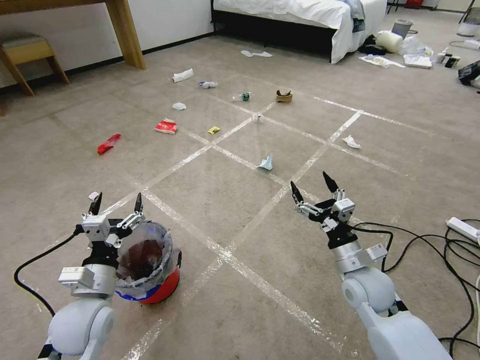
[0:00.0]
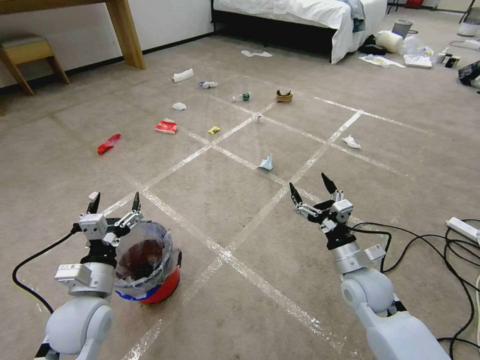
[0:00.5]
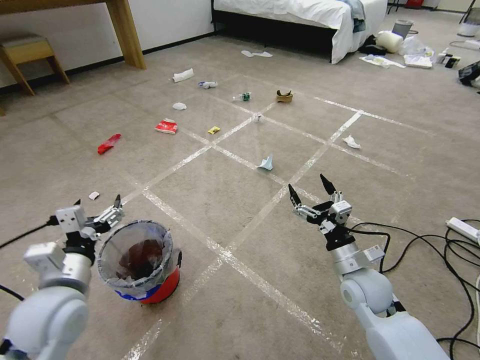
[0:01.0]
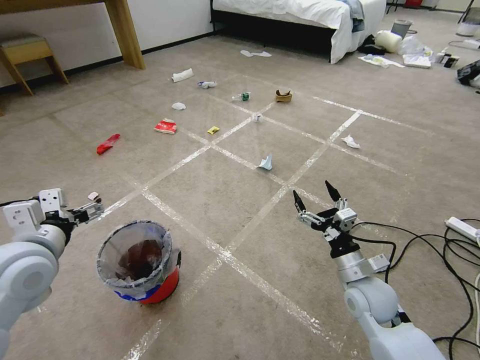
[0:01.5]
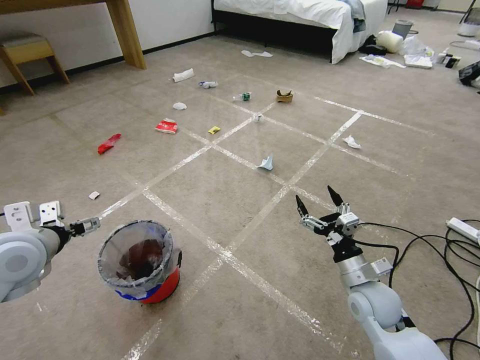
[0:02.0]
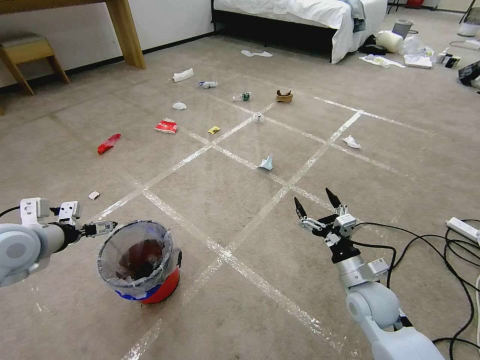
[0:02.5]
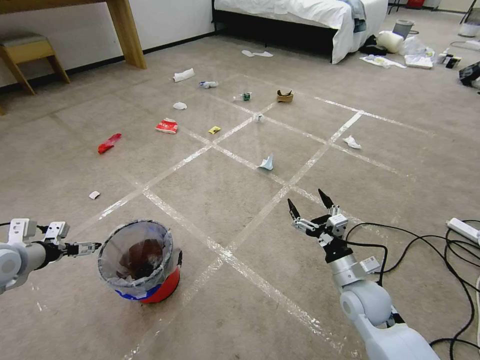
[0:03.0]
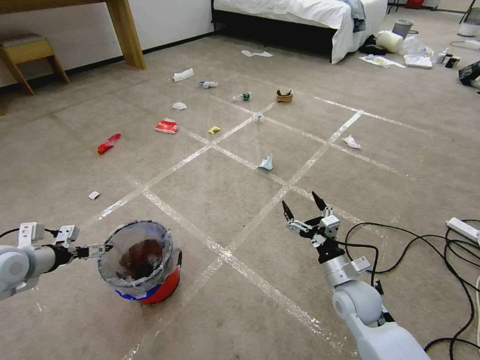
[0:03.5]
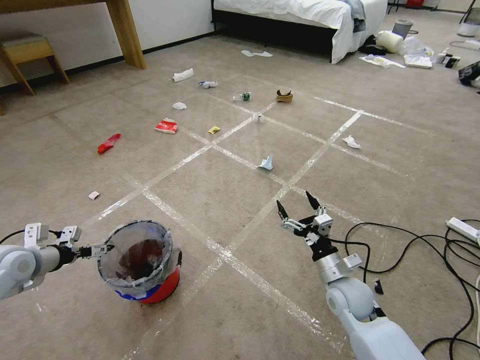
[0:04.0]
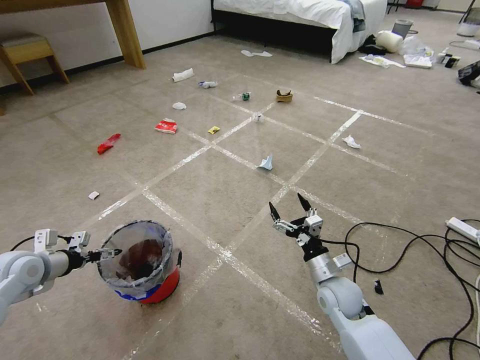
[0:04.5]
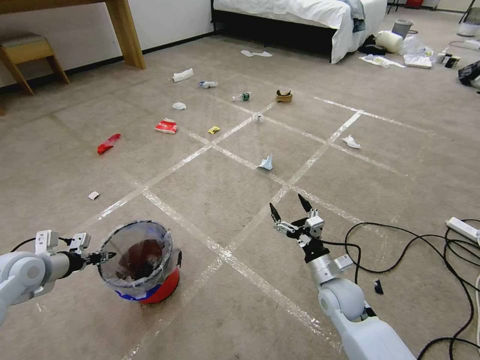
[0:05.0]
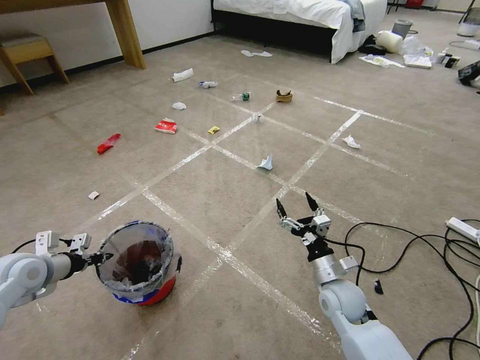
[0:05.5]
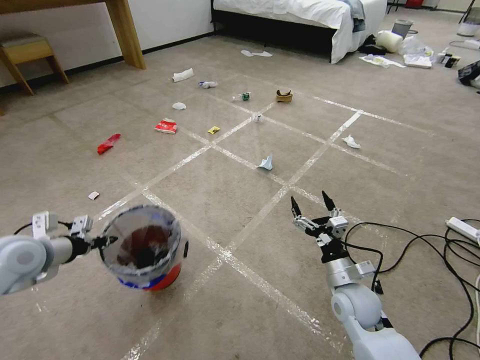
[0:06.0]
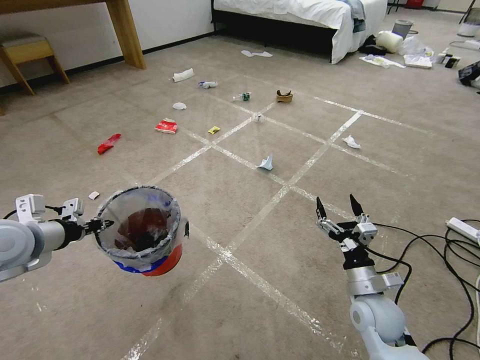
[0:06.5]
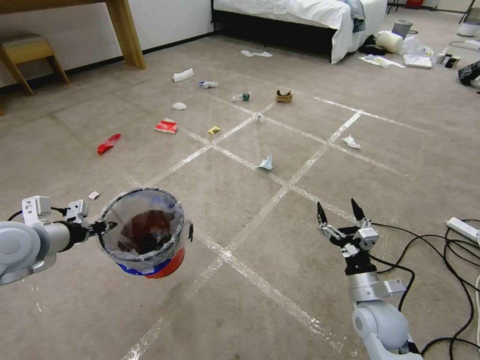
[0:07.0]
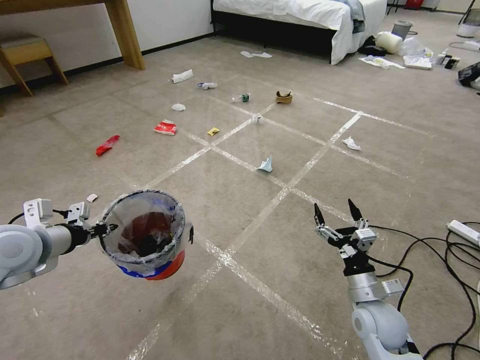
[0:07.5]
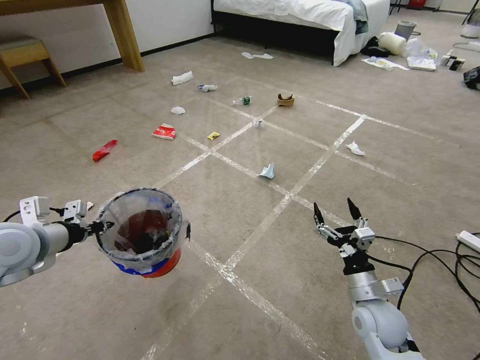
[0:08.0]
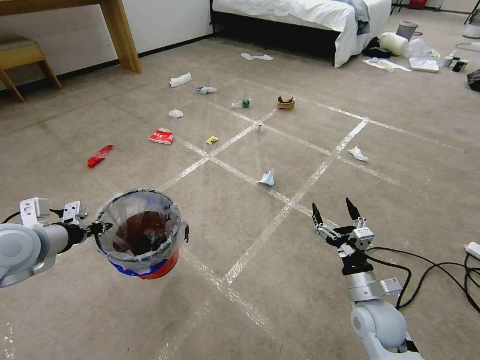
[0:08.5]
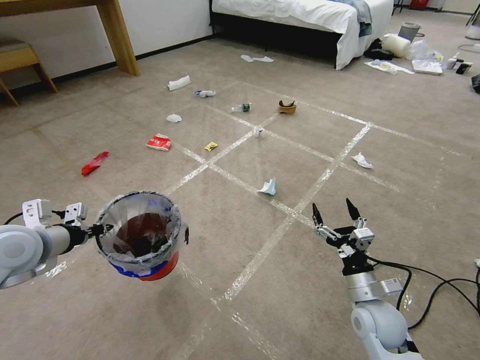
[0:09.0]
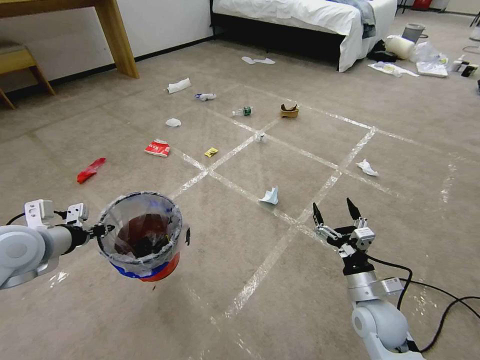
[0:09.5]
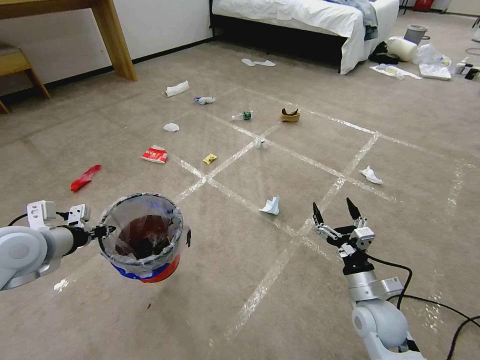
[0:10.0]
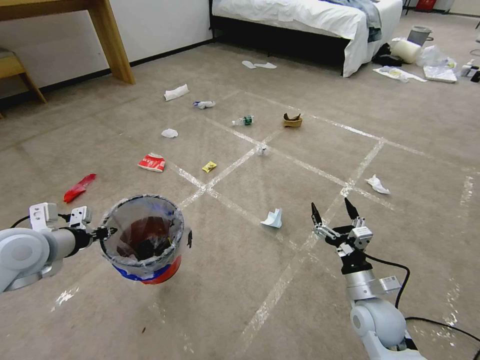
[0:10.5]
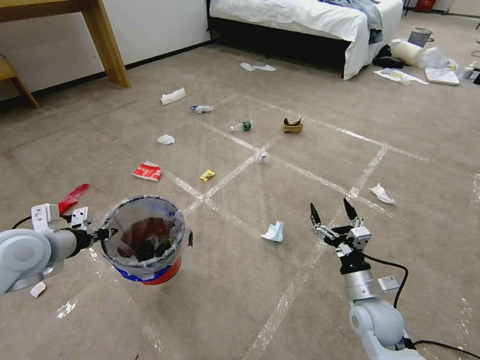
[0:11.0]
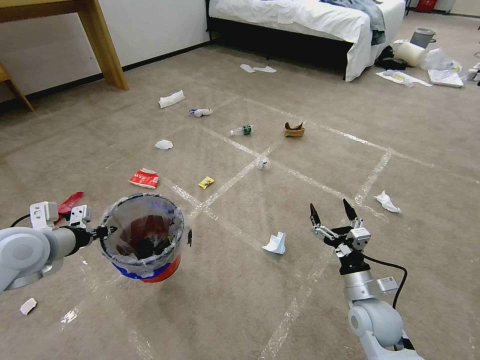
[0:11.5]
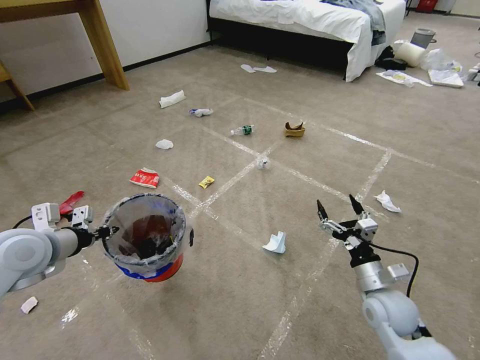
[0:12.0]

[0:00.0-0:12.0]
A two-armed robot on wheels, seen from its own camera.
Task of the whole recording: Pick up the trash bin and place the garbage on the floor into it.
0:02.0 to 0:04.0: The right gripper changes place by about 5 cm, while the left gripper goes roughly 15 cm to the left and downward.
0:04.0 to 0:06.0: The left gripper travels to the right and upward by approximately 10 cm, and closes.

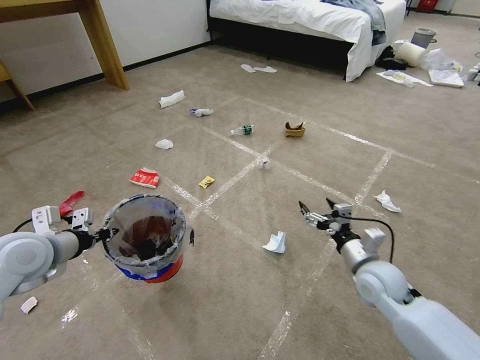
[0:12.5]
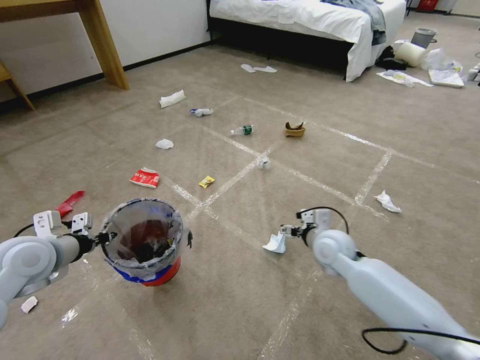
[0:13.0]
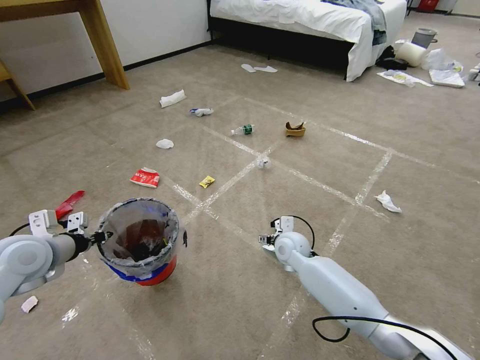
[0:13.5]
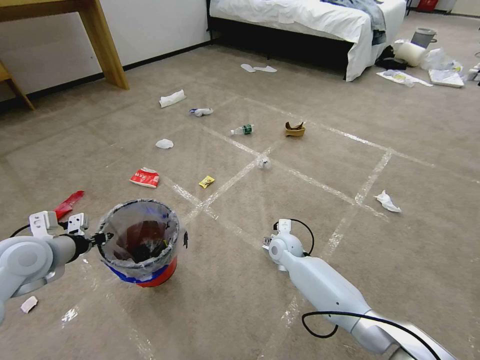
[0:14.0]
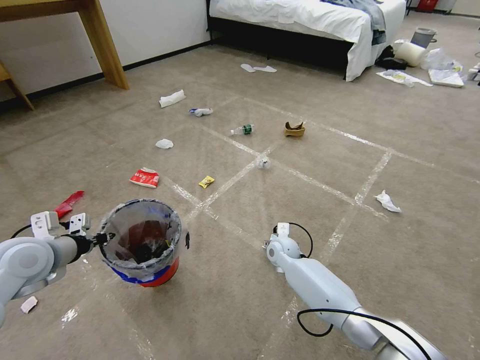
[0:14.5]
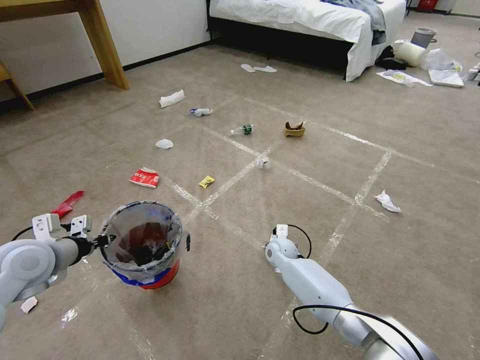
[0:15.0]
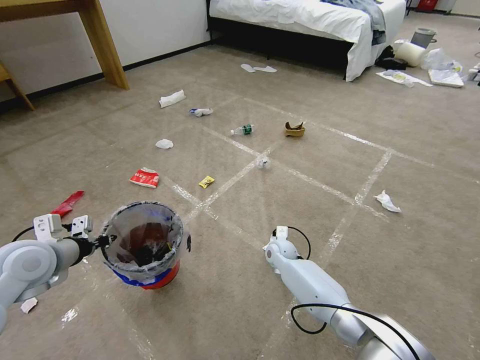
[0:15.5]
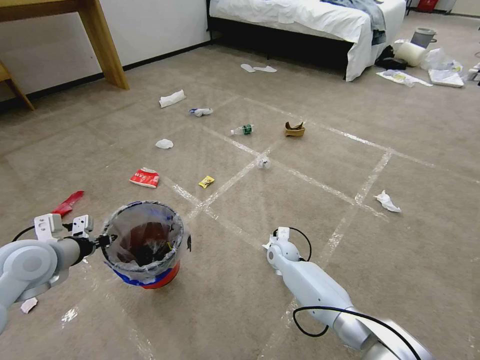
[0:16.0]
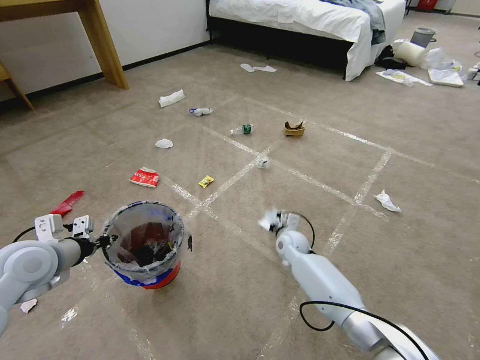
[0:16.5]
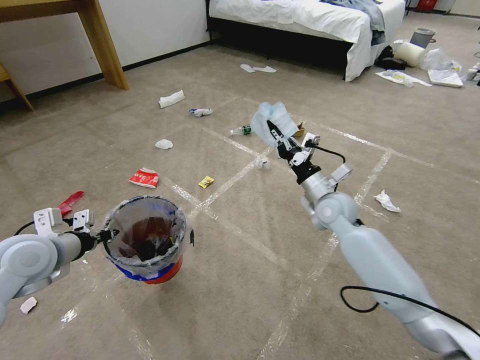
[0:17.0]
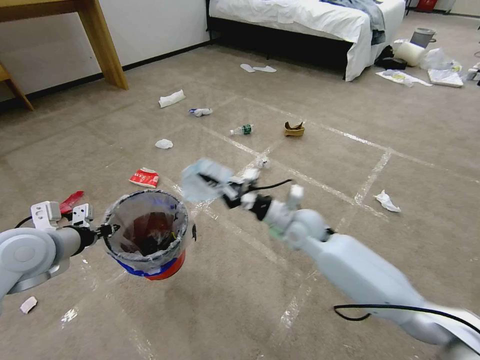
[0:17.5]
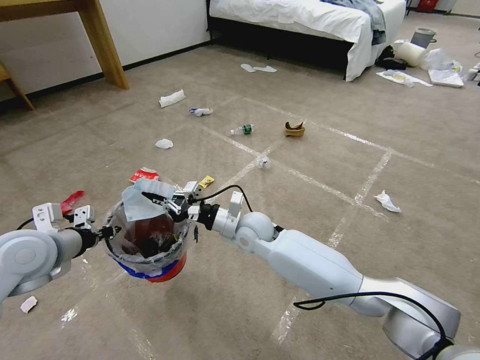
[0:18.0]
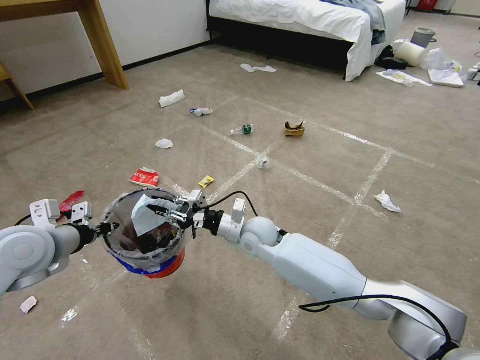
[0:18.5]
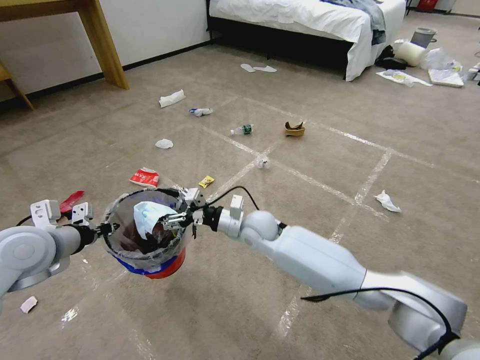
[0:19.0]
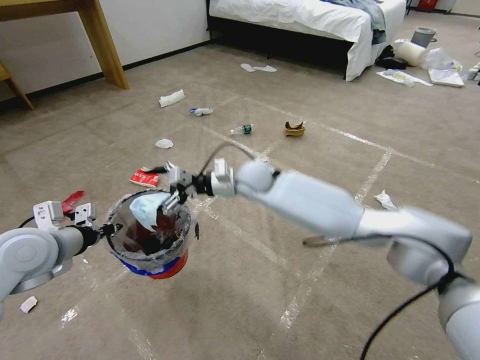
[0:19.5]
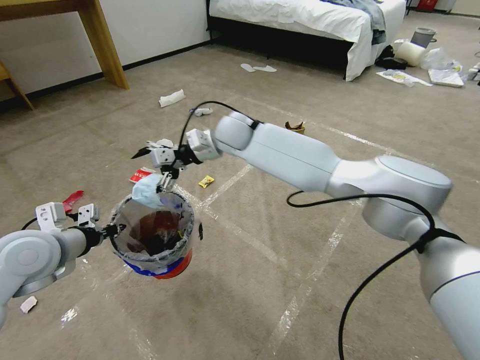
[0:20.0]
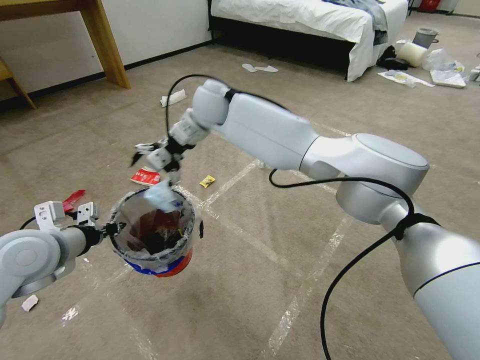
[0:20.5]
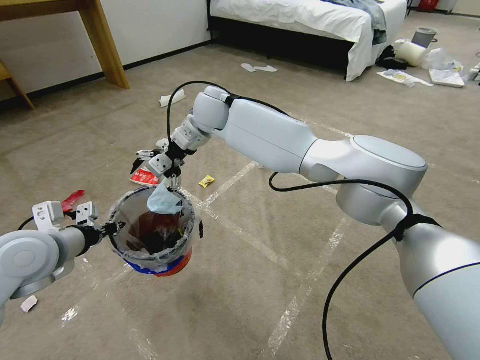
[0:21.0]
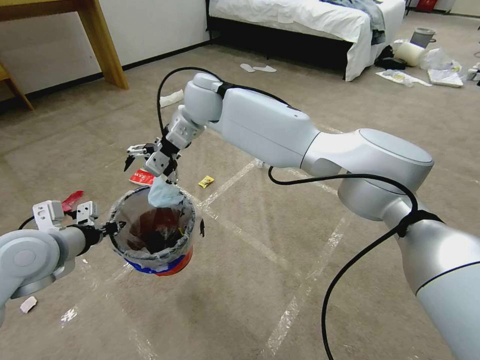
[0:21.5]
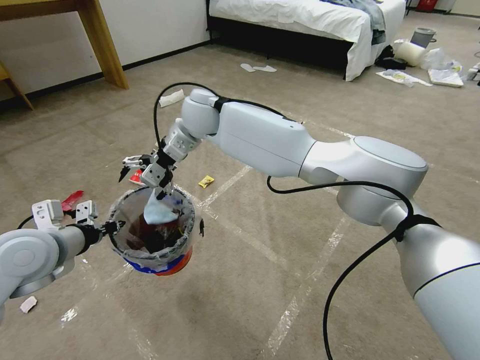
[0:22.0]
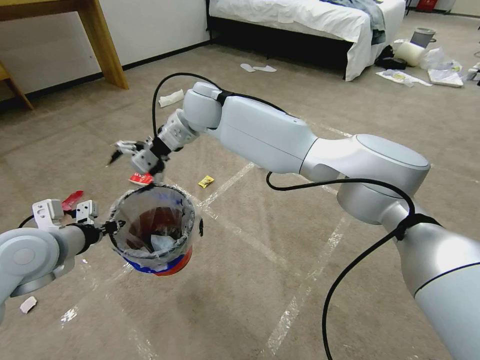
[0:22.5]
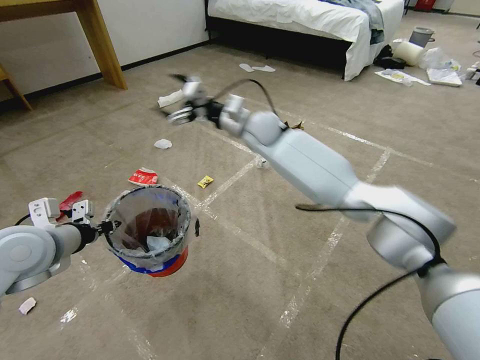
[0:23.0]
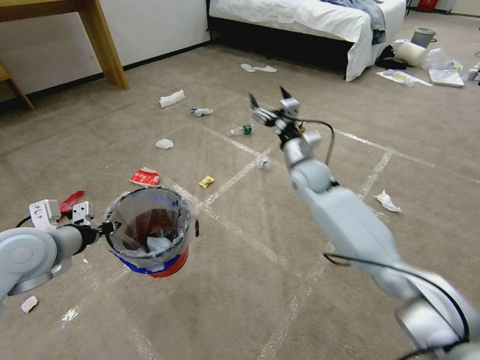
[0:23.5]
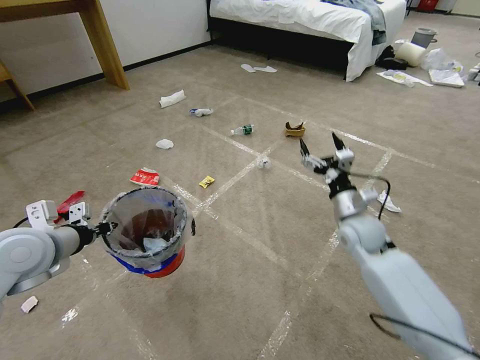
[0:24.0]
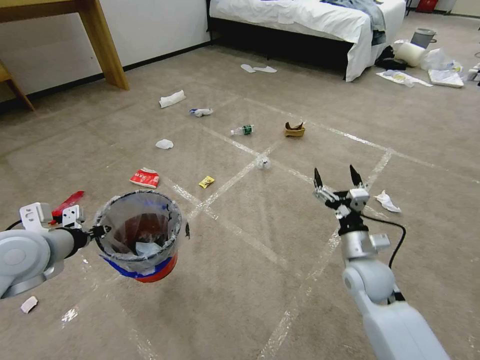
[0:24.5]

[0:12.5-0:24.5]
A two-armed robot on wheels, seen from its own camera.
Task of the whole recording: Pick up the trash bin and place the garbage on the floor into it.
0:12.5 to 0:14.5: The right gripper is displaced to the left, forward and downward by approximately 25 cm.
0:14.5 to 0:16.5: The right gripper closes up.
0:16.5 to 0:18.5: The right gripper is displaced upward and to the left by about 15 cm.
0:18.5 to 0:20.5: The right gripper goes some 30 cm upward and forward, and opens its fingers.
0:20.5 to 0:22.5: There are only small adjustments of the grippers.
0:22.5 to 0:24.5: The right gripper shifts approximately 50 cm to the right, downward and backward.

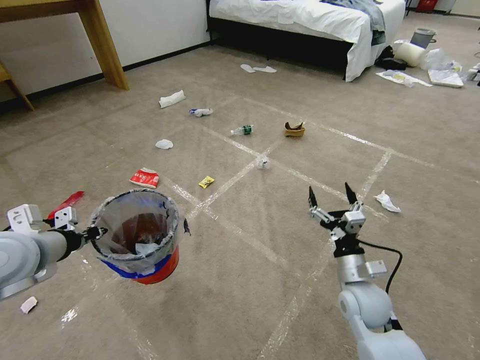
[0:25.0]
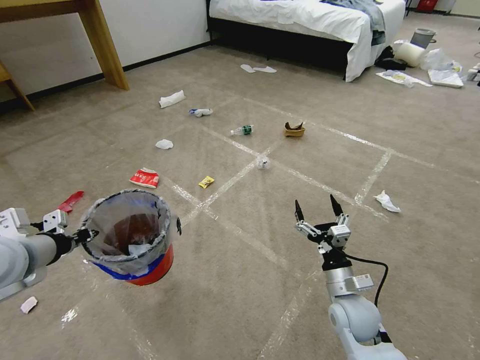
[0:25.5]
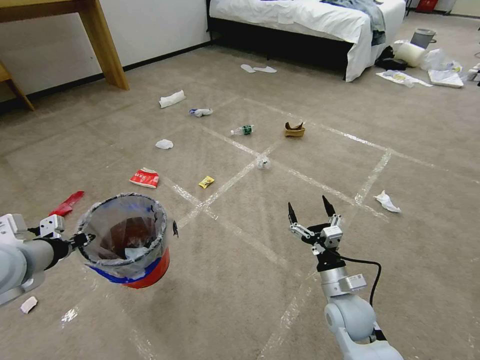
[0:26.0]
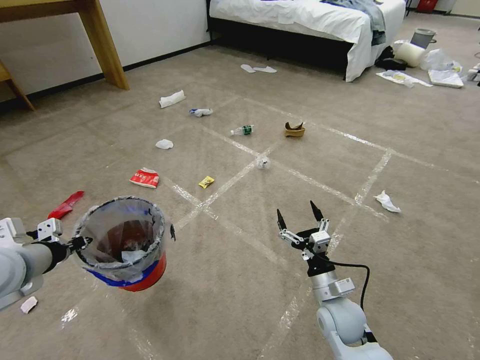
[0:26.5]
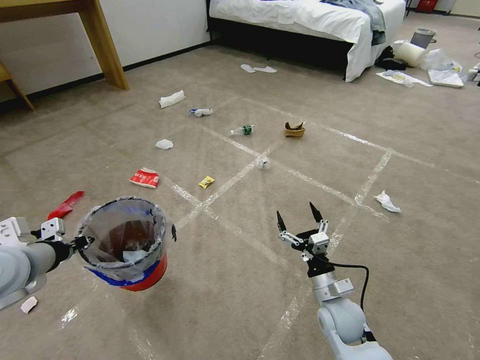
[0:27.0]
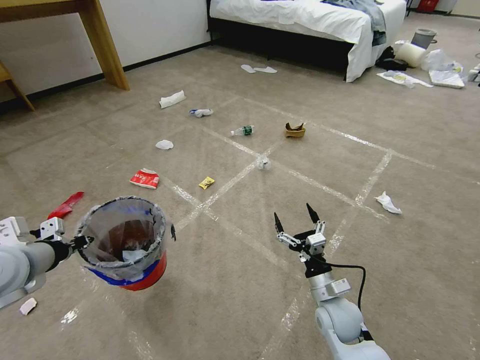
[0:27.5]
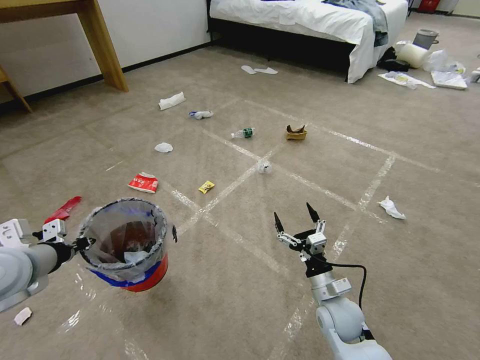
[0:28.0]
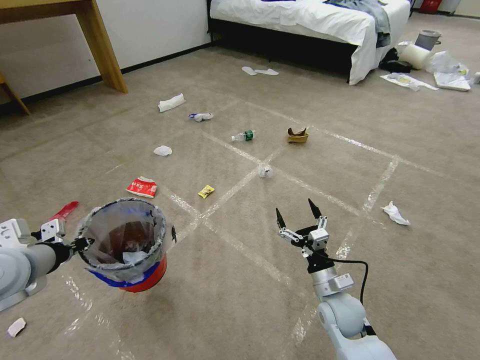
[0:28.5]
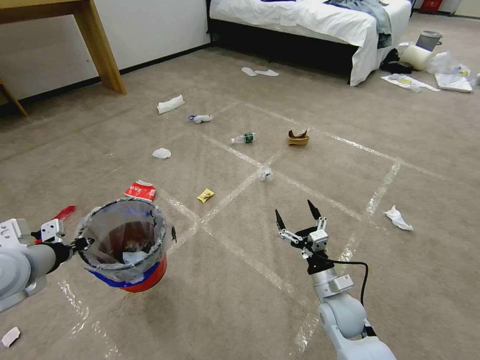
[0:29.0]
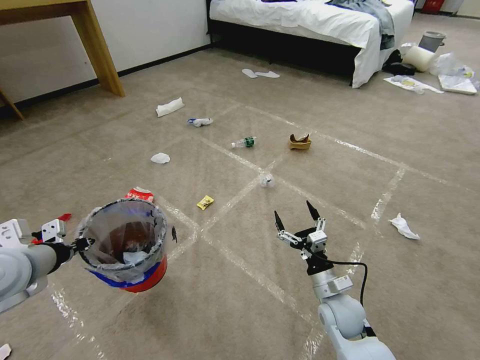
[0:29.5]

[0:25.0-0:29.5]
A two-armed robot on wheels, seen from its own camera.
Task of the whole recording: Pick up the trash bin and place the garbage on the floor into it.
0:25.0 to 0:27.0: The right gripper travels downward by roughly 5 cm.
0:27.0 to 0:29.5: The two grippers keep their place.
